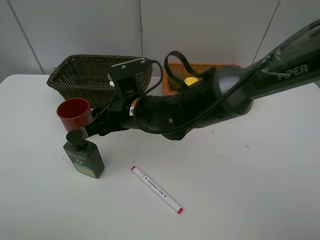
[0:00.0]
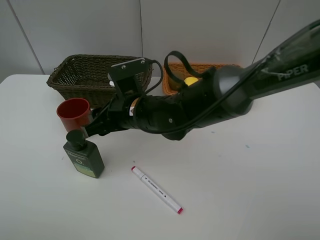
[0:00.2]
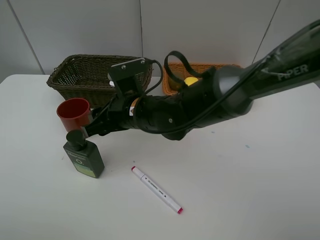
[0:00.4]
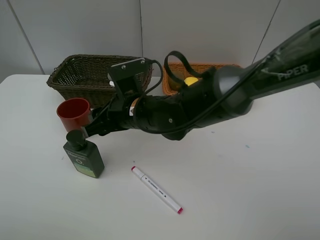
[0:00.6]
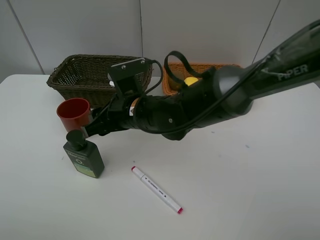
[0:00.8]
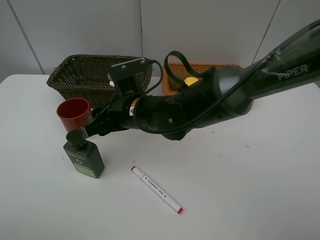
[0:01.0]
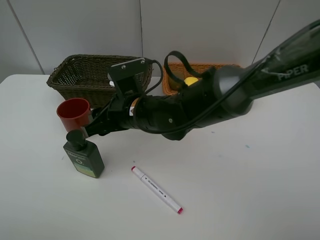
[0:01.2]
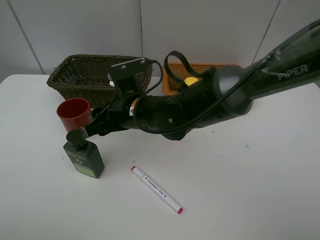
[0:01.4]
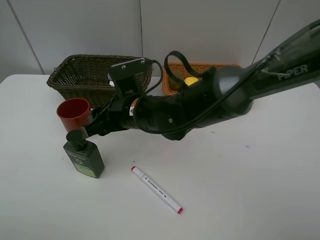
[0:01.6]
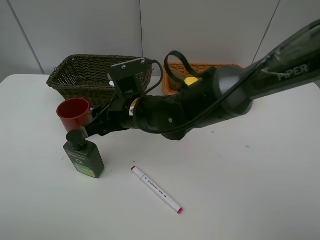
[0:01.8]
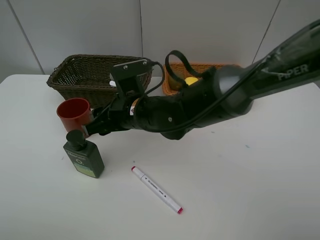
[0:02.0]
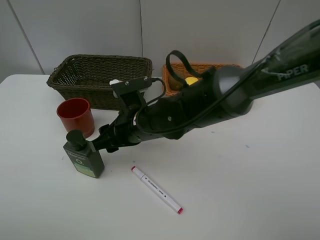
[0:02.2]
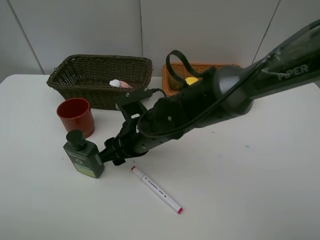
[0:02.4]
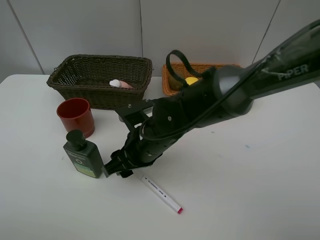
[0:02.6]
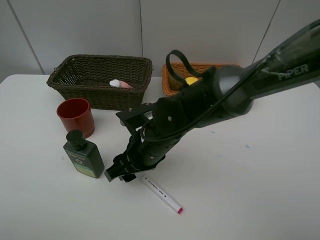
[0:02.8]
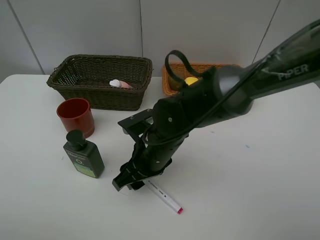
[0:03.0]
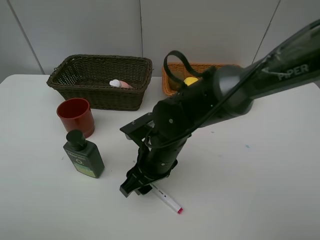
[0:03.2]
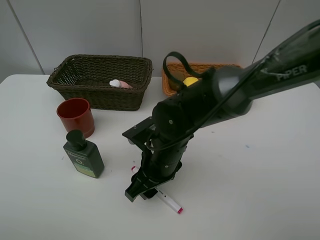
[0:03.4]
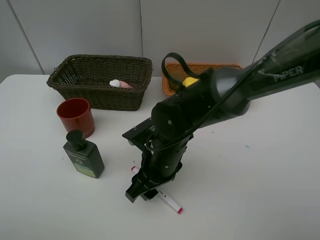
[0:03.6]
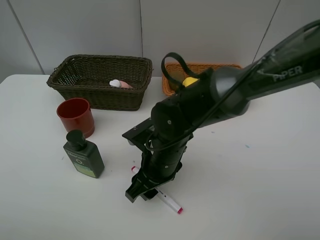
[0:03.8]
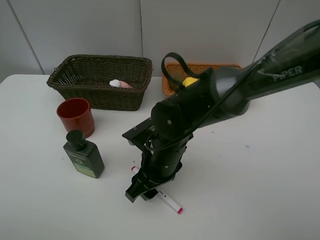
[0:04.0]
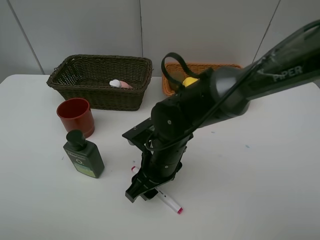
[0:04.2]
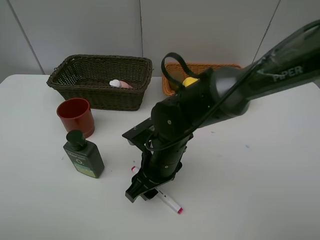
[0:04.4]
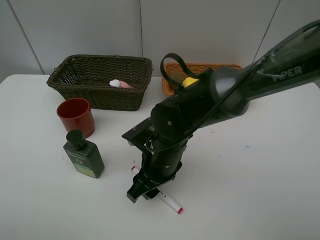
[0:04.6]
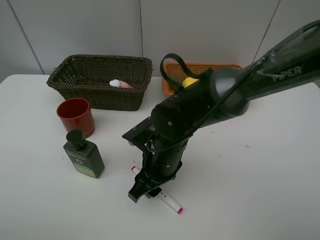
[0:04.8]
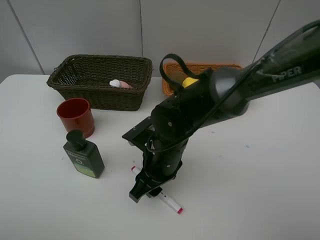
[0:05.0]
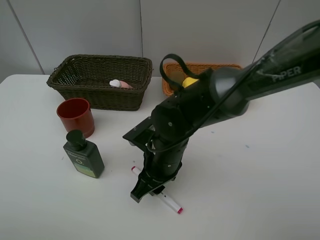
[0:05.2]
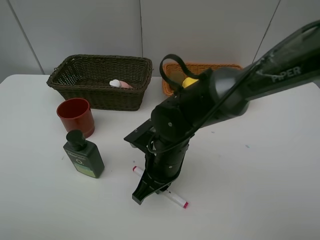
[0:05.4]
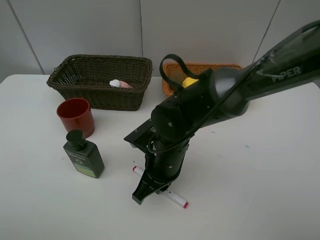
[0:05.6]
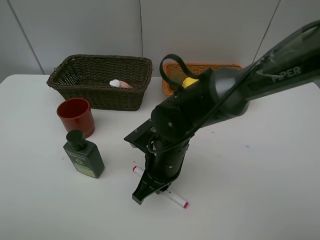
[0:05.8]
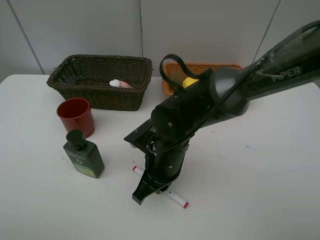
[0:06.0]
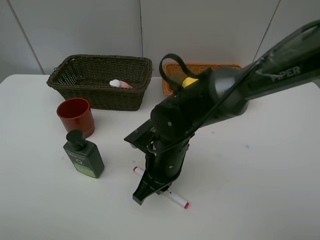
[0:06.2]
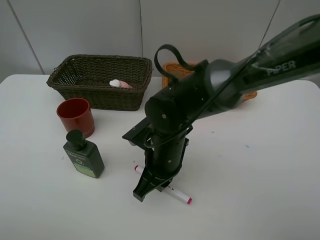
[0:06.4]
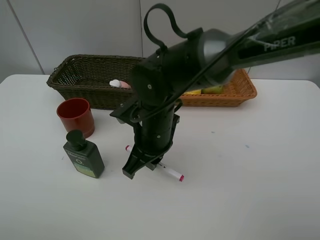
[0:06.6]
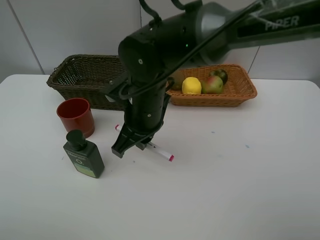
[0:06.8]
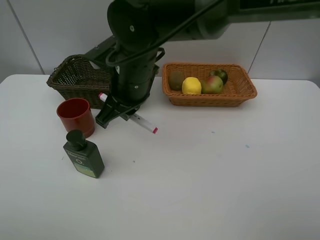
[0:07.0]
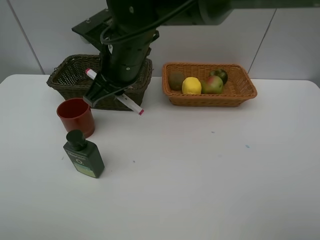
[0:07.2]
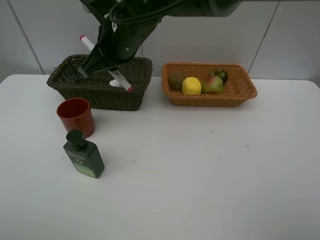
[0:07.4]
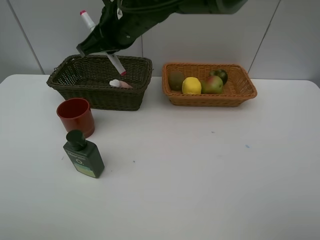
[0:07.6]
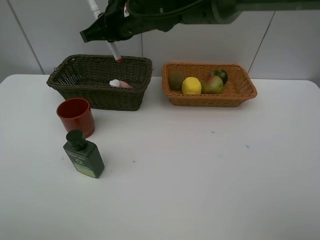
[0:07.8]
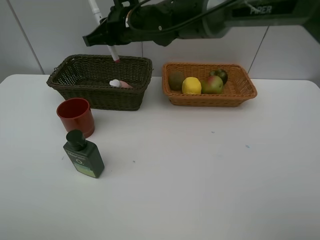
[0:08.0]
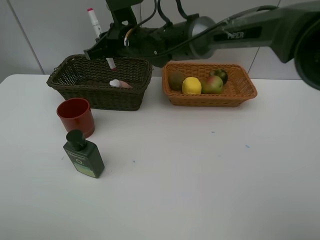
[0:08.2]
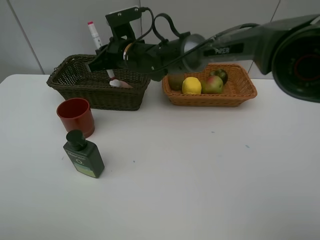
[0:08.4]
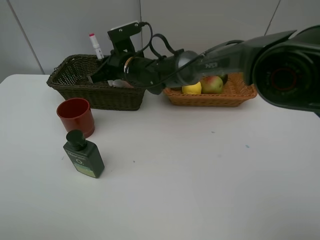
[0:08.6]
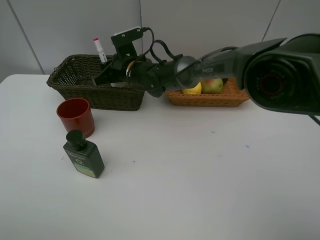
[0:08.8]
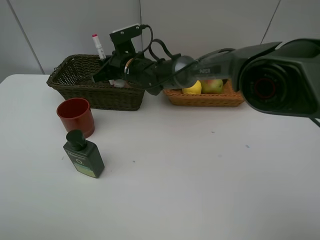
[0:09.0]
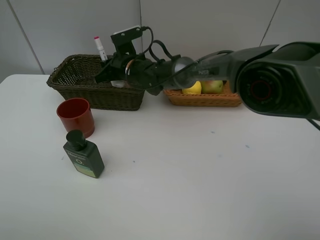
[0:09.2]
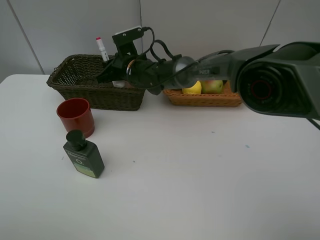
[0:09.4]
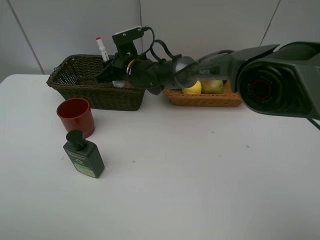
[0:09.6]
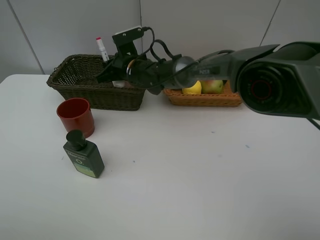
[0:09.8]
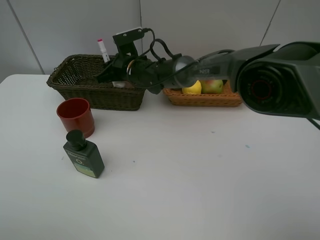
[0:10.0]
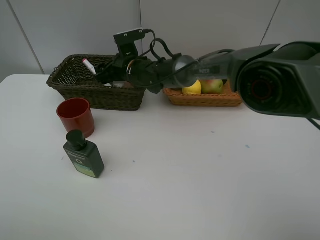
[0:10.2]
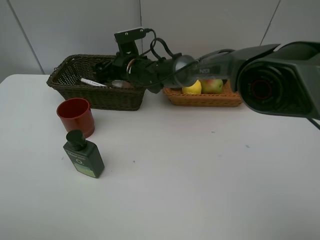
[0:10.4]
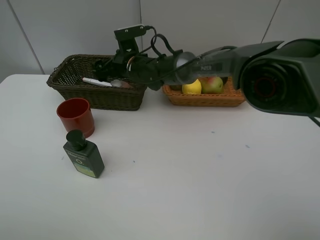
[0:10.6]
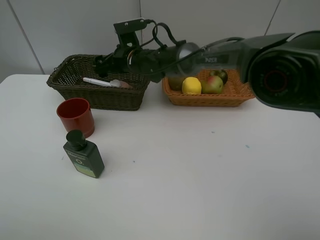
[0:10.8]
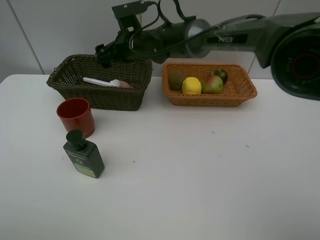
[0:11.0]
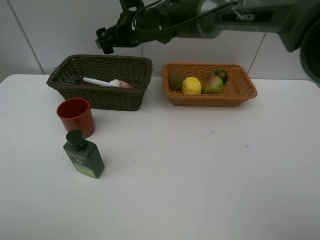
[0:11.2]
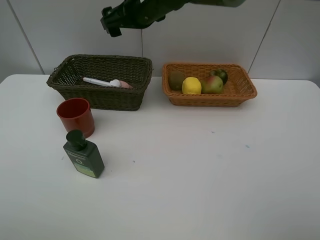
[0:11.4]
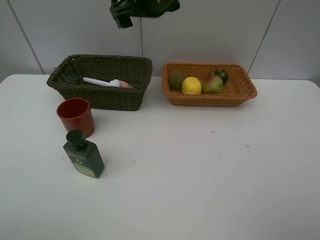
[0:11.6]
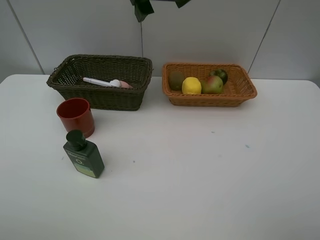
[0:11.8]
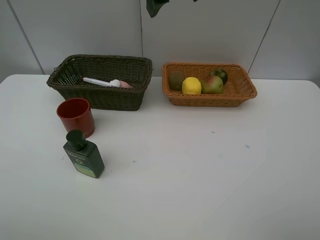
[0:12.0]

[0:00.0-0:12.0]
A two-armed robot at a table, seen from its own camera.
Task of the whole recording: Place multiple objects separately in different baskets.
Step, 0:00.0 to 0:06.4: Pick up the red marker with right gripper.
Step, 0:06.6 to 0:10.6: Place the red marker in the dark basket with right gripper.
0:00.0 to 0:01.6: Neither gripper changes place.
0:01.6 to 0:03.0: The right gripper moves about 5 cm.
0:03.0 to 0:04.4: The grippers stay close to where they were, moving slightly.
0:04.4 to 0:06.0: The right gripper closes.
0:06.0 to 0:07.6: The right gripper is displaced upward and forward by approximately 25 cm.
0:07.6 to 0:09.0: The right gripper is displaced downward and forward by approximately 15 cm.
0:09.0 to 0:10.4: The right gripper opens its fingers.
0:10.4 to 0:12.0: The right gripper shifts approximately 30 cm upward, backward and to the right.

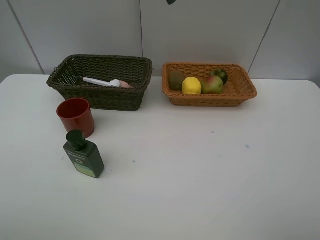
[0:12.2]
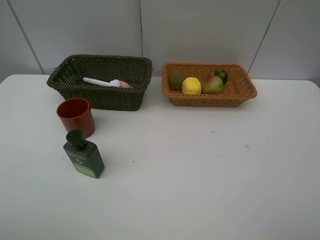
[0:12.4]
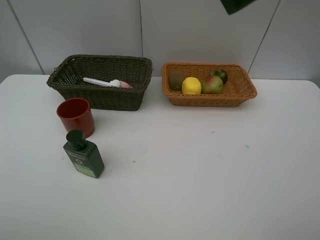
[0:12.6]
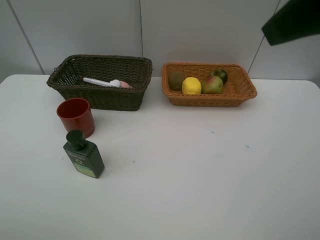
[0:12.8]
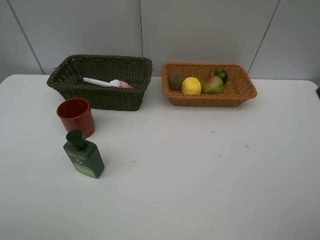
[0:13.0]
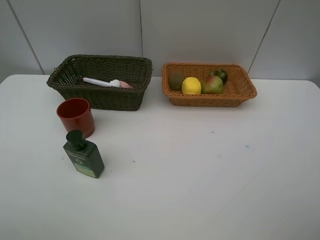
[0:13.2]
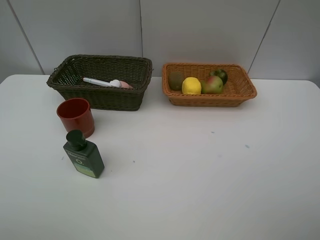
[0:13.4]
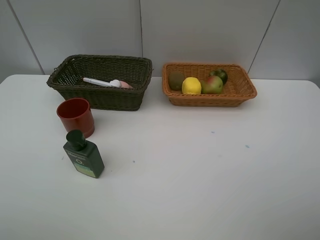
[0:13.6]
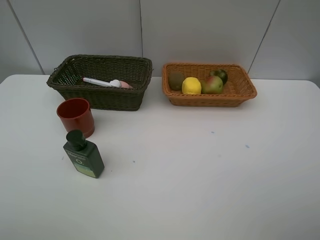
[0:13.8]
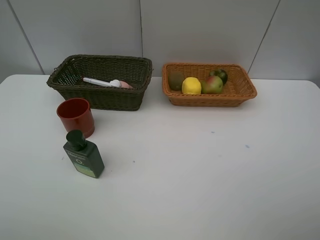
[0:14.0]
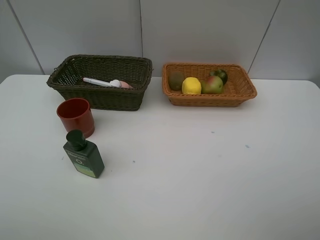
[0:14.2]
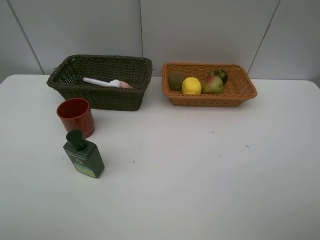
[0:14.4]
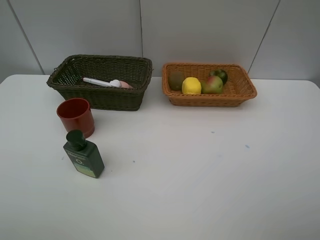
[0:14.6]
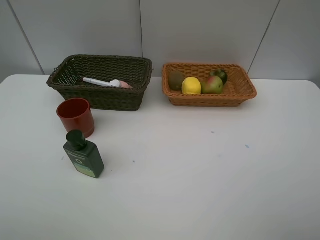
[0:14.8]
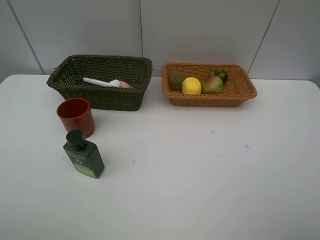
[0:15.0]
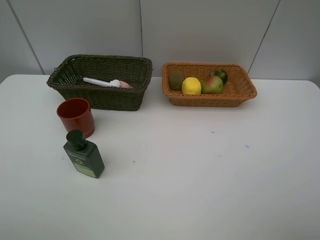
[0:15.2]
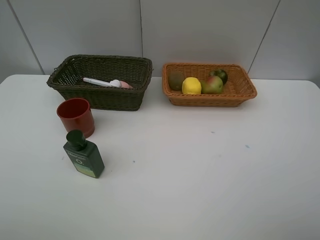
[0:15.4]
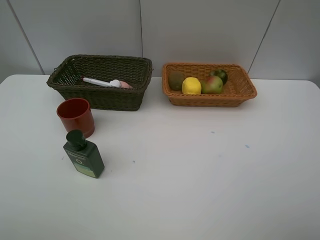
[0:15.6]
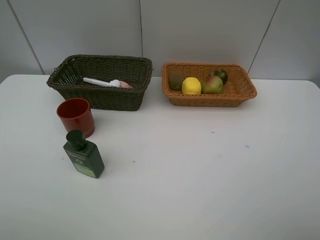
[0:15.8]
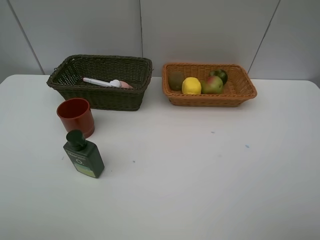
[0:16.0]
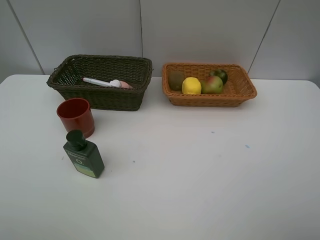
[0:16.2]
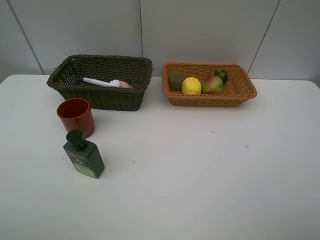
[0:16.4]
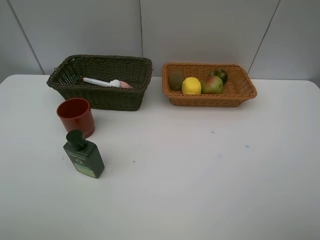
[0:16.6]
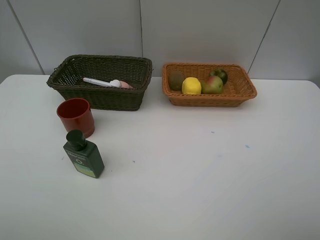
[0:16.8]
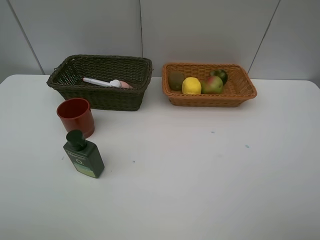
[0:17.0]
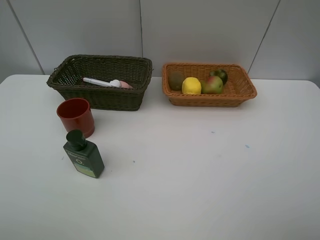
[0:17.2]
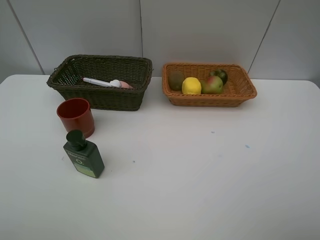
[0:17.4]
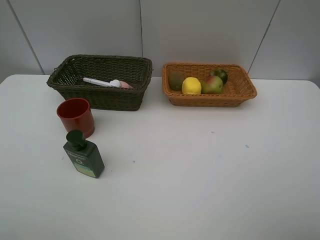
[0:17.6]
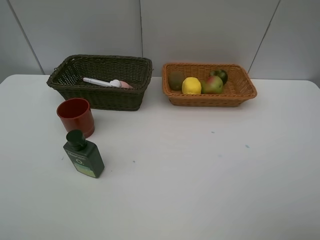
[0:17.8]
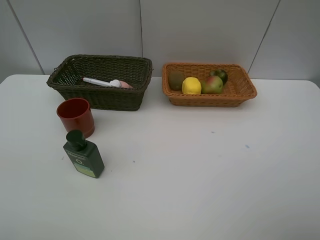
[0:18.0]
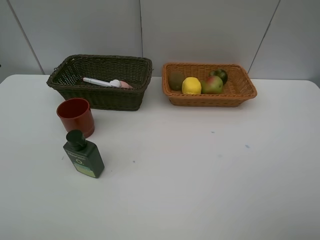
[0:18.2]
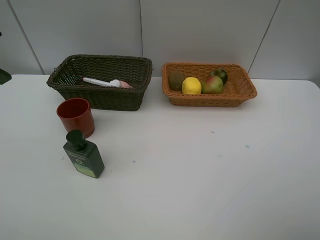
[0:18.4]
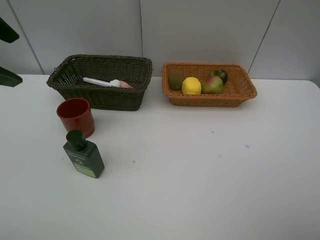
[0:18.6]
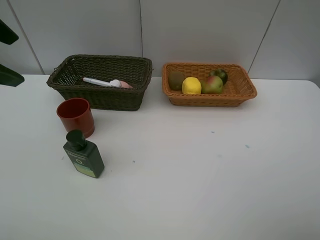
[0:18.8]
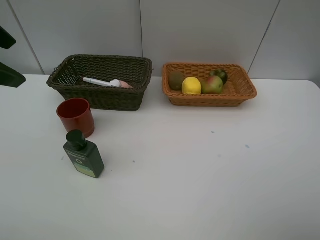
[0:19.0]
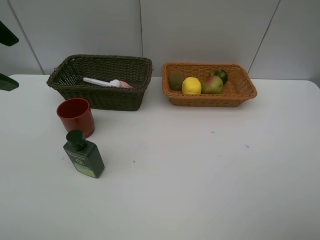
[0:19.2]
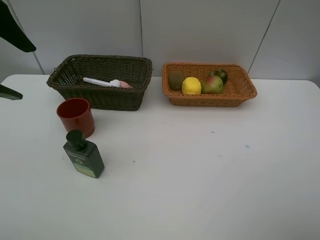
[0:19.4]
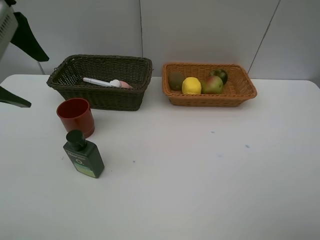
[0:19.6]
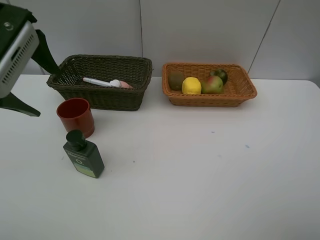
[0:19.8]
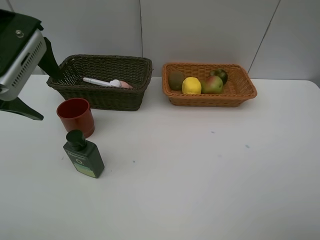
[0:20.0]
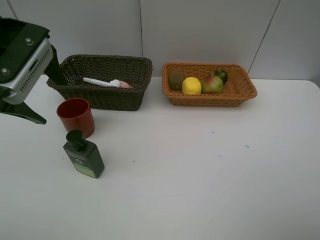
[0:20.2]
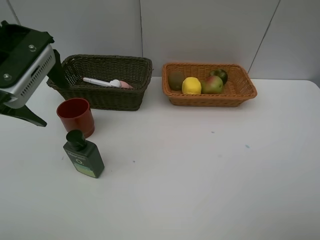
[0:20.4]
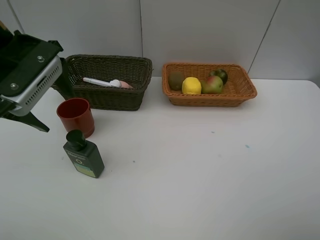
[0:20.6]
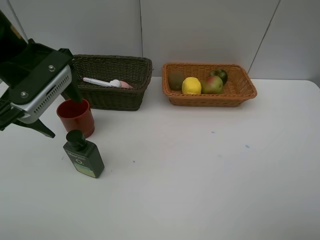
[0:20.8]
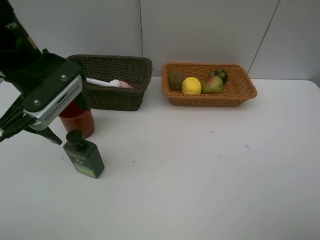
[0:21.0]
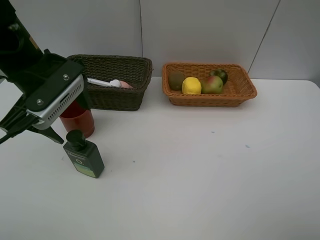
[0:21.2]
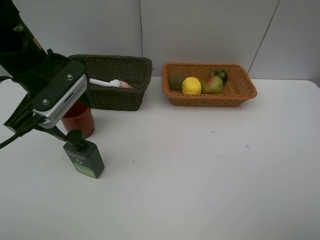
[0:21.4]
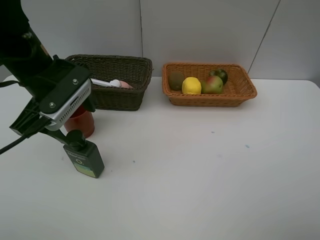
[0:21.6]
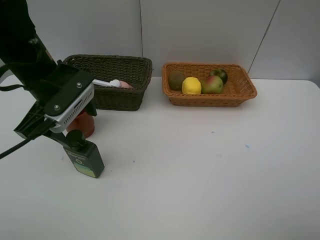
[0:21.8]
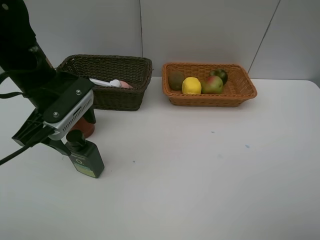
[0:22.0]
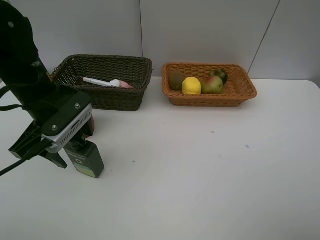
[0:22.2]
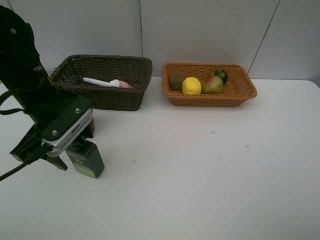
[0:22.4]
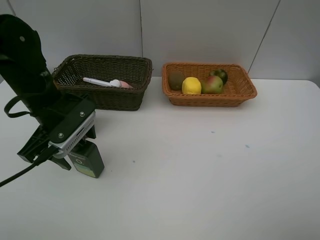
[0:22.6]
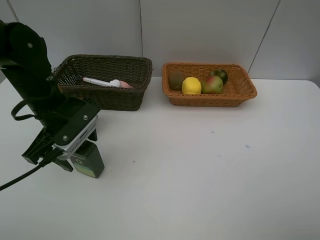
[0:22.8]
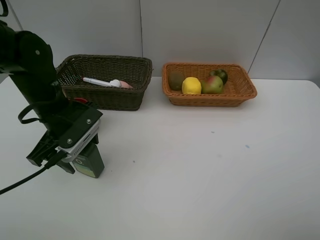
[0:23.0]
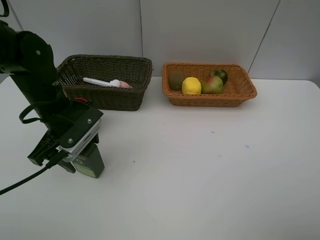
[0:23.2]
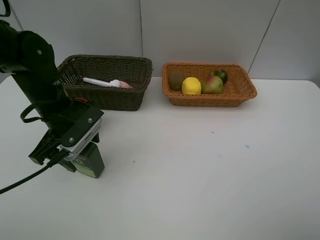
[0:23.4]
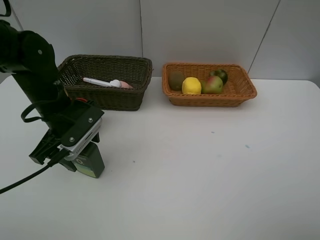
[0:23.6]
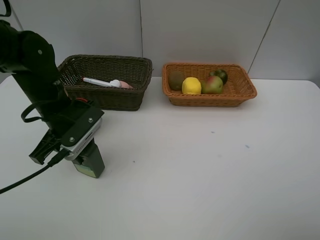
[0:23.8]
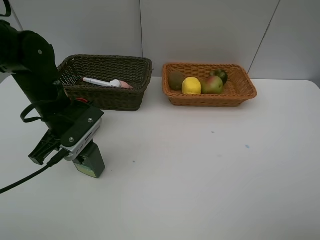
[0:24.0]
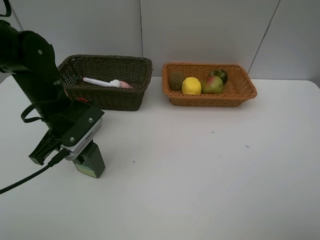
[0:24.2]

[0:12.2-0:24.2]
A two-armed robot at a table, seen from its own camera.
Task of the whole recording: Place multiple objects separately in different baskets.
0:15.2 to 0:16.6: Both grippers stay put.
0:18.2 to 0:19.8: The left gripper heads to the right and downward, covering roughly 10 cm.
0:19.8 to 0:21.2: The left gripper shifts approximately 5 cm downward.
0:21.2 to 0:22.6: The left gripper shifts approximately 5 cm downward.
0:22.6 to 0:24.2: The left gripper closes its fingers.
